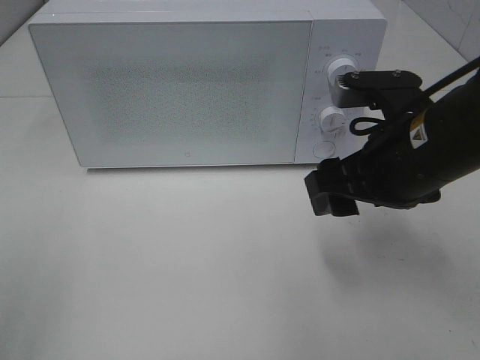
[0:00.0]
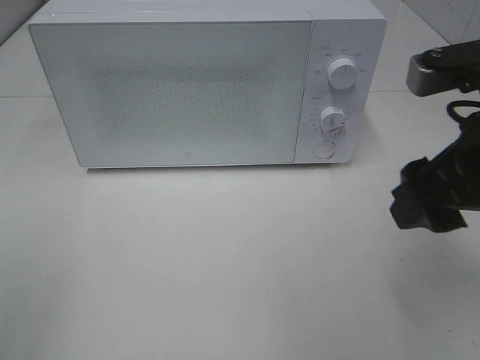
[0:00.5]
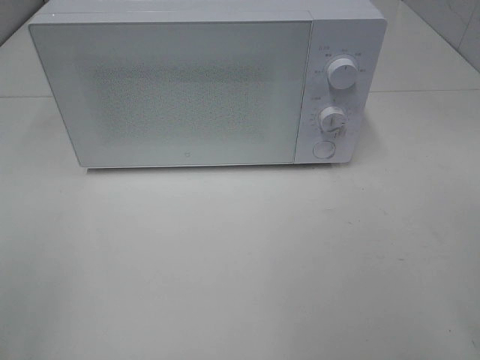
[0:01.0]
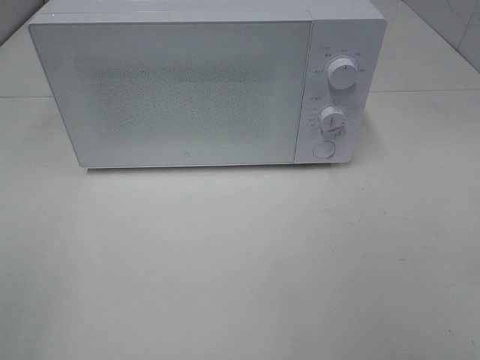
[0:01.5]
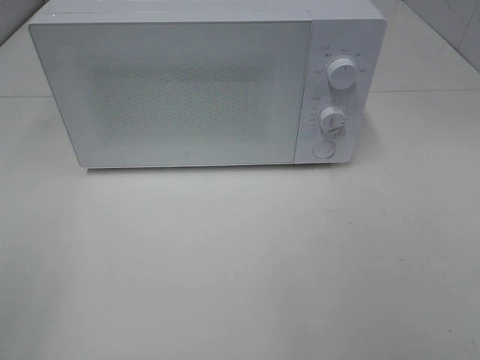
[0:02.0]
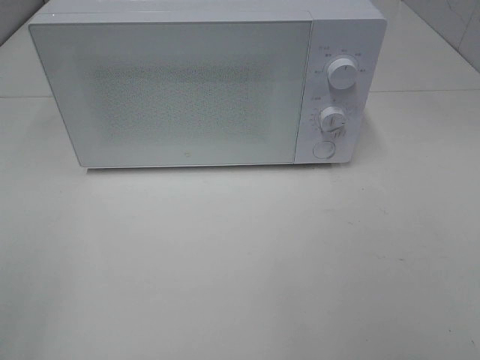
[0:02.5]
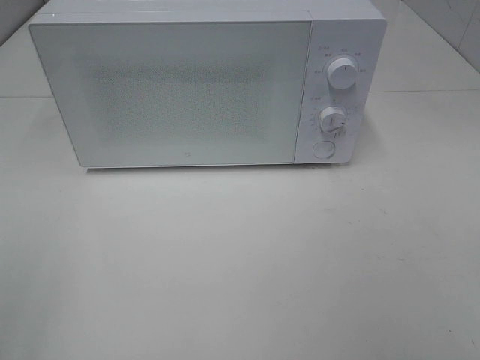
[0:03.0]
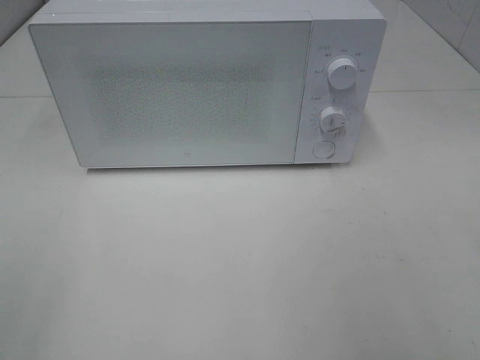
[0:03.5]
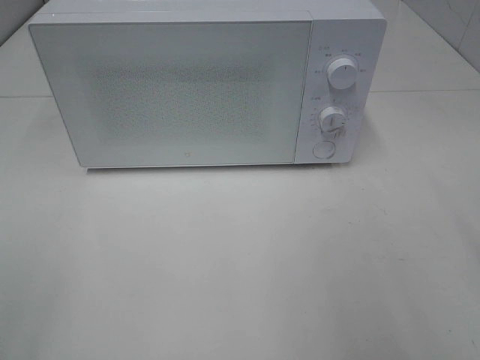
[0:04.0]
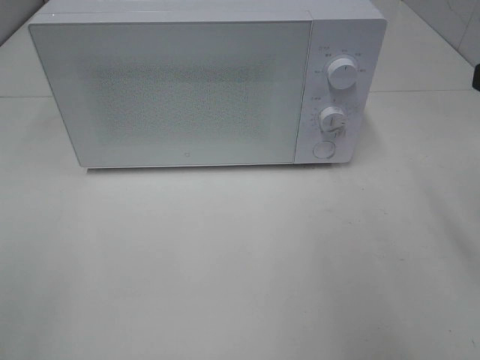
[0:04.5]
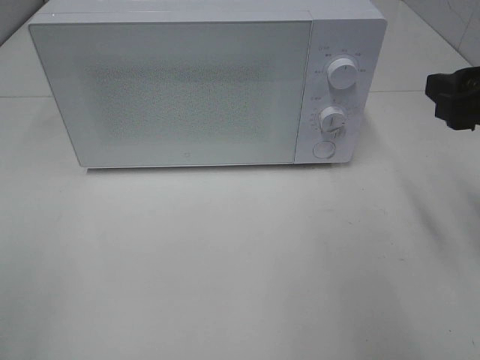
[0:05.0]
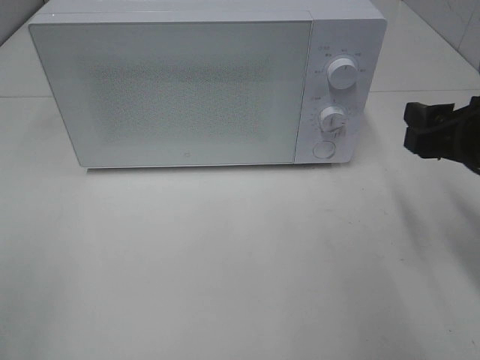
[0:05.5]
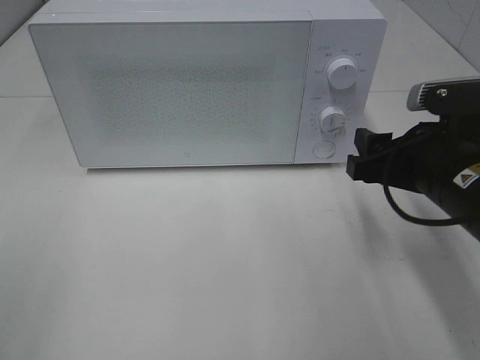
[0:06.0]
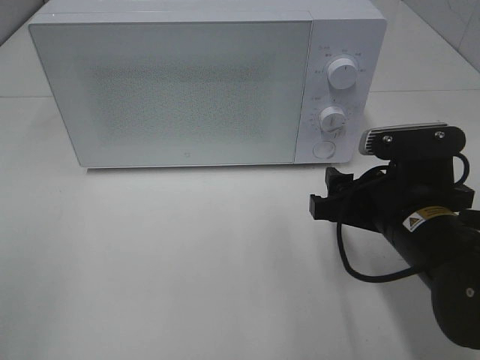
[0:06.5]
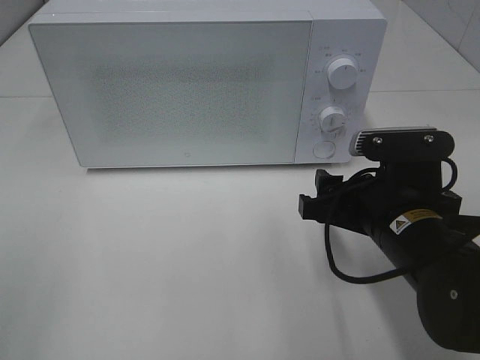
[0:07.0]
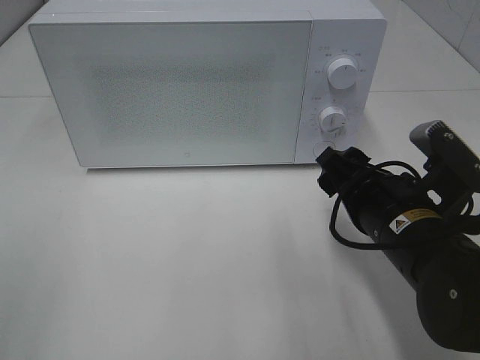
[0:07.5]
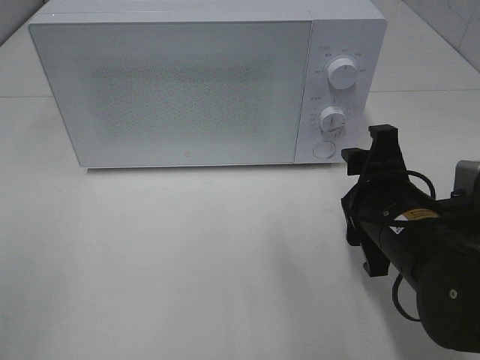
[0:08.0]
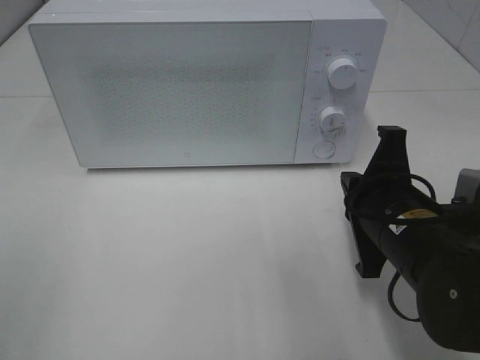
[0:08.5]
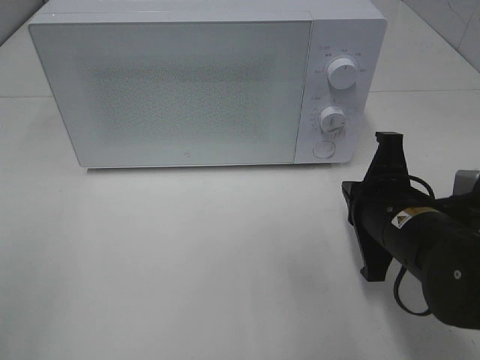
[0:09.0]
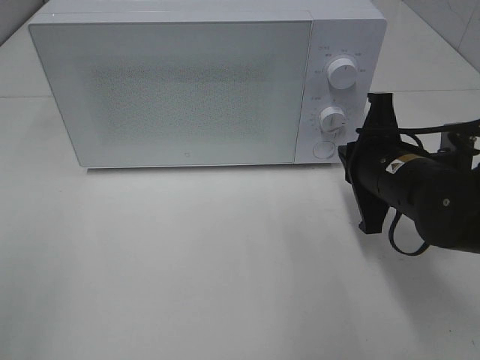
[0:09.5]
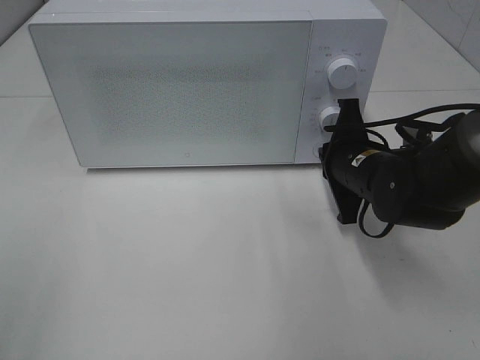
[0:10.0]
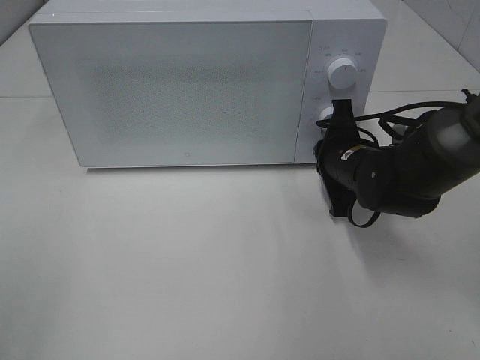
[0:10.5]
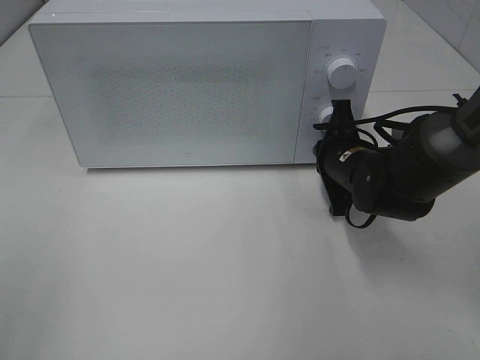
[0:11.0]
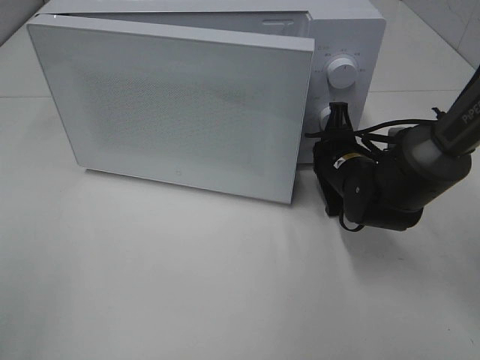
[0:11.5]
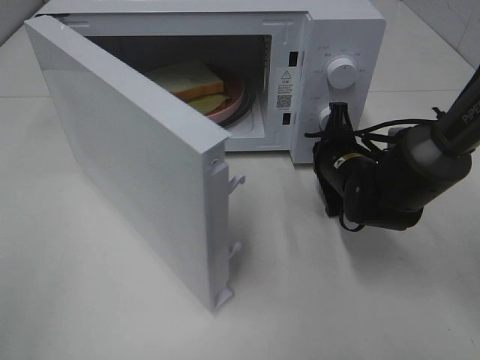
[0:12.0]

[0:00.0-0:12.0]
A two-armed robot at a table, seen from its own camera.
Task of the whole recording: Heat Sandwich.
0:00.0 to 0:02.0: The right gripper moves backward and to the right, roughly 25 cm.
0:04.0 to 0:06.0: The right gripper goes about 20 cm downward, forward and to the left.
0:06.0 to 0:08.0: The right gripper shifts by roughly 5 cm.
0:08.0 to 0:10.0: The right gripper heads forward, covering roughly 10 cm, and closes up.

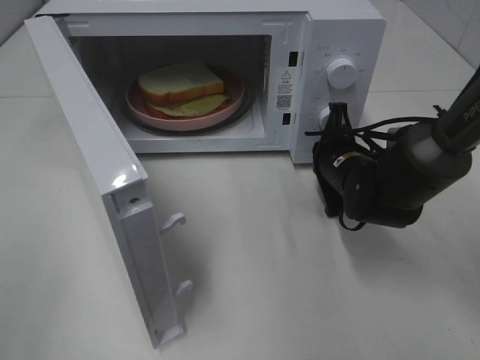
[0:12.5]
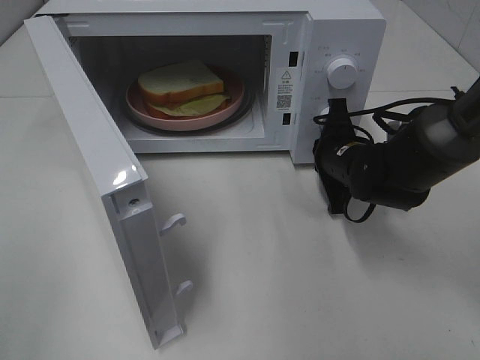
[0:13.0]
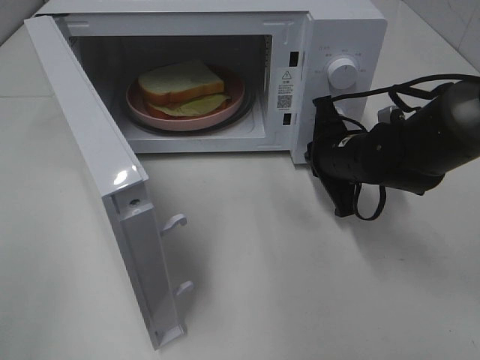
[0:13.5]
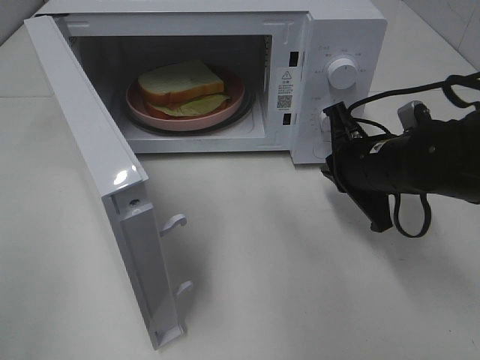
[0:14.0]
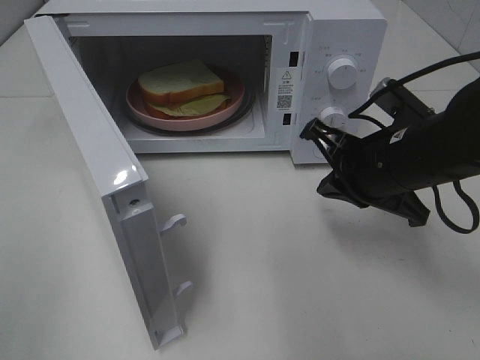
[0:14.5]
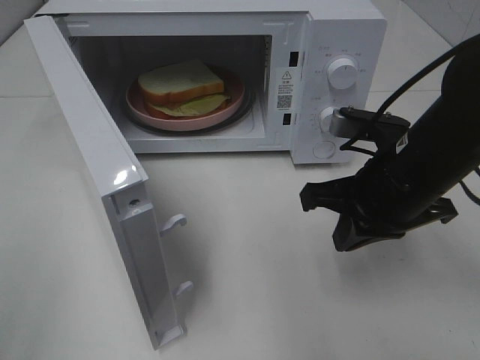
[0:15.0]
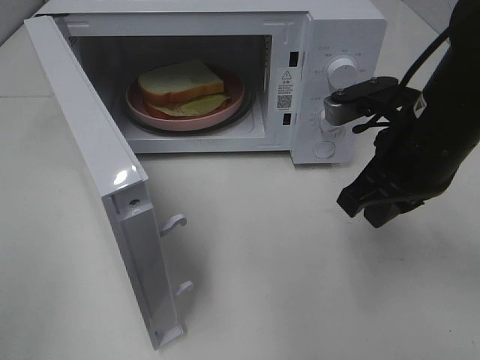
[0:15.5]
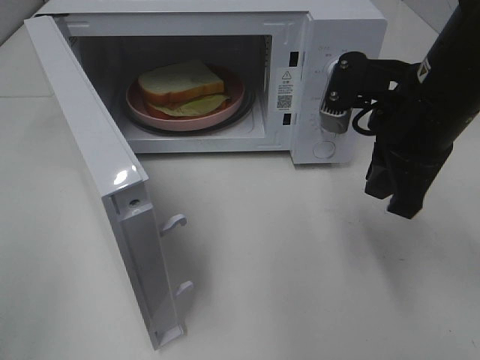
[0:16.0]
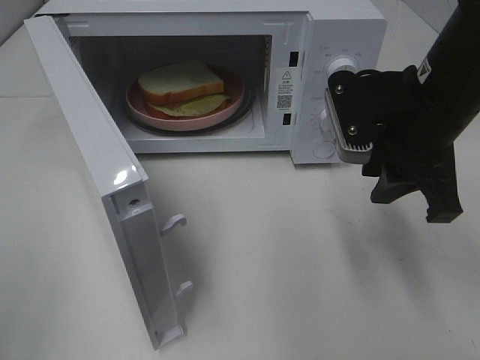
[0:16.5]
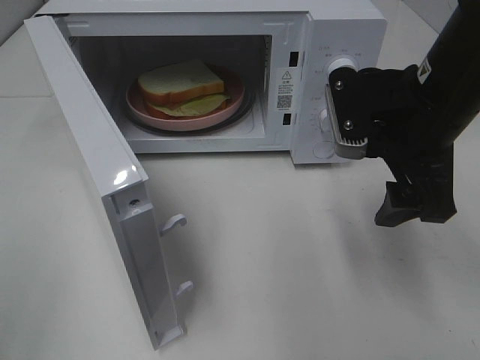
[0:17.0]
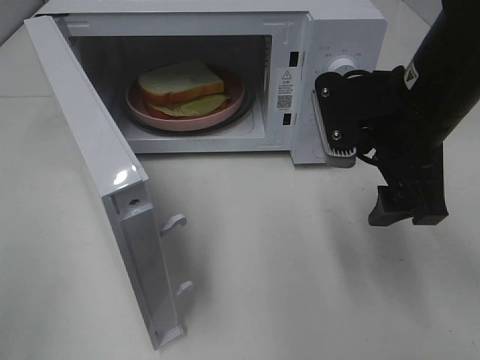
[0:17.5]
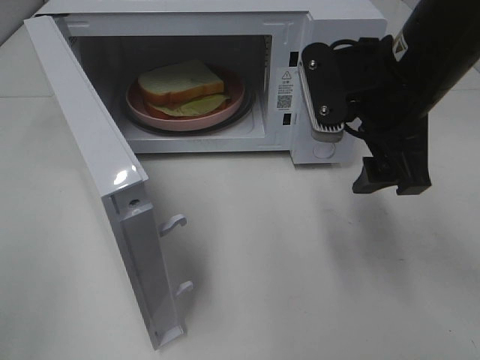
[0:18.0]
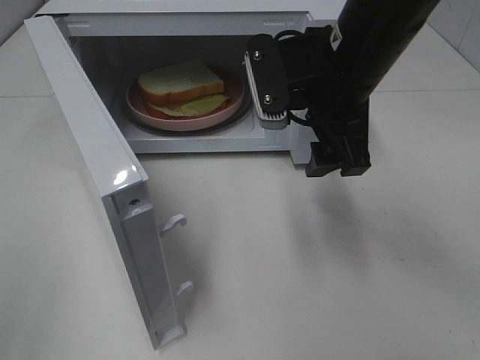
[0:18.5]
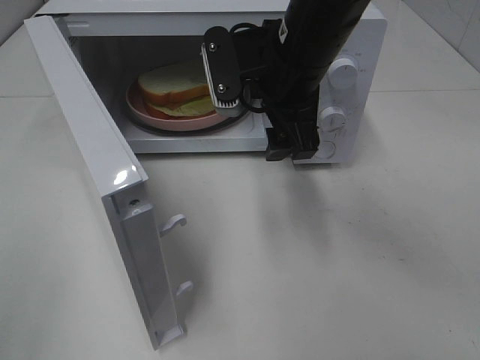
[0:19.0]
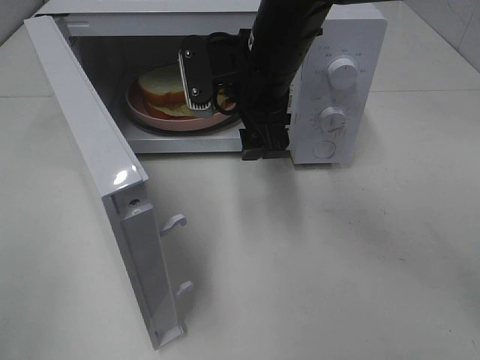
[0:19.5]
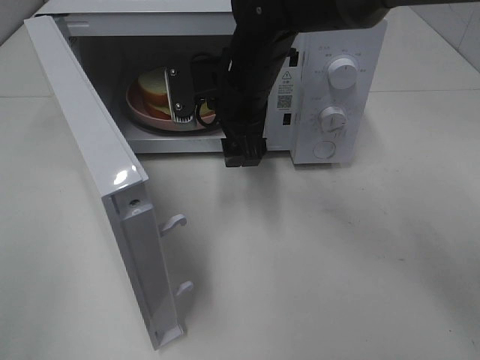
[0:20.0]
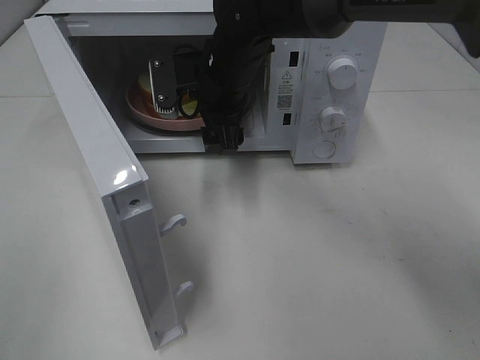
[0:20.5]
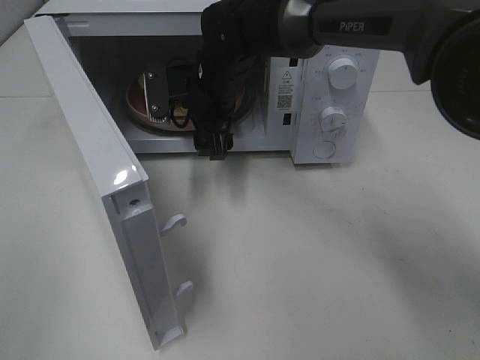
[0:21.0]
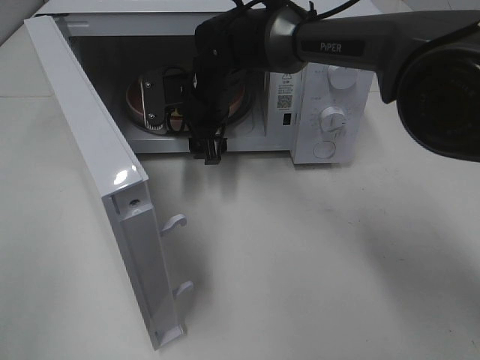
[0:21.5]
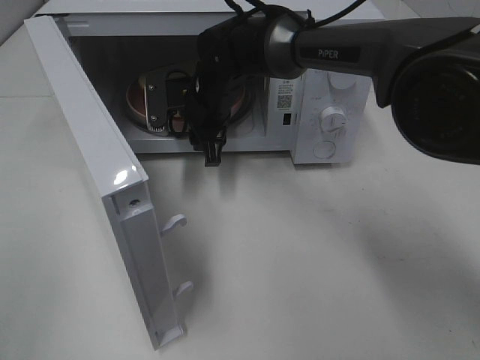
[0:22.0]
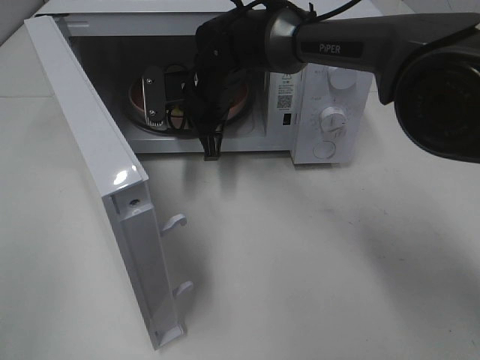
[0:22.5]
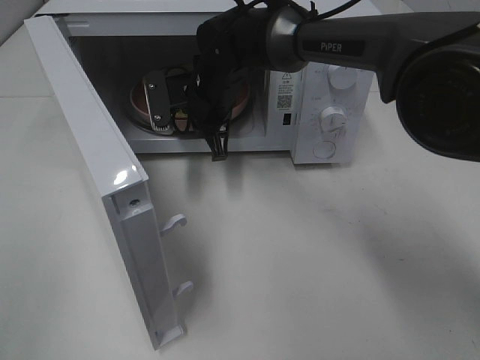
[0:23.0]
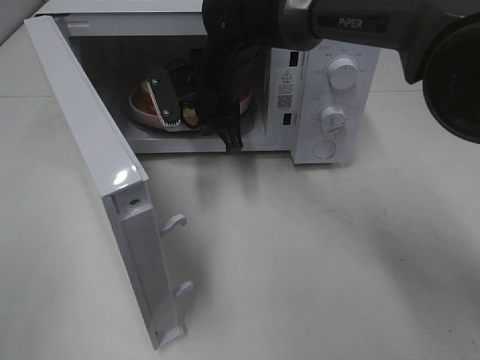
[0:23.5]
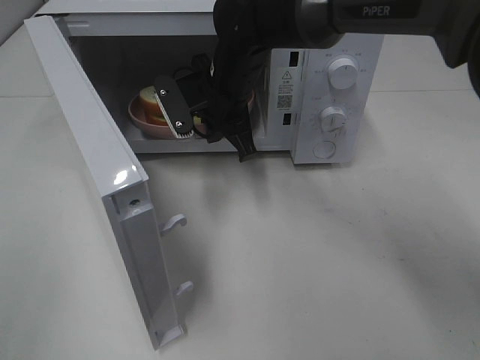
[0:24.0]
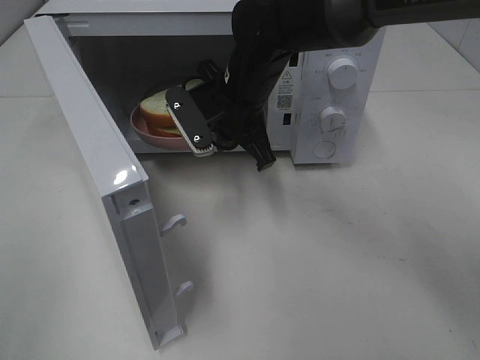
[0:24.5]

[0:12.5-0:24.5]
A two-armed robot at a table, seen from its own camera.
Task of the whole recording: Heat Sandwich.
Step, 0:14.0 to 0:22.0: Right hand: grab the plate with the sandwich.
0:12.5 to 0:14.5: The right gripper travels upward and backward by roughly 15 cm.
0:14.5 to 0:16.5: The right gripper moves upward, approximately 5 cm, and opens.
0:16.5 to 0:18.5: The right gripper travels to the left by about 5 cm, and opens up.
0:18.5 to 0:20.5: The right gripper moves forward, to the left and downward, about 15 cm.
0:20.5 to 0:22.5: The right gripper shifts by roughly 5 cm, and closes up.
0:22.5 to 0:24.5: The right gripper travels backward by approximately 5 cm.

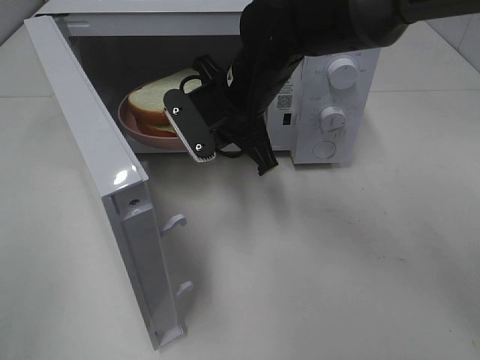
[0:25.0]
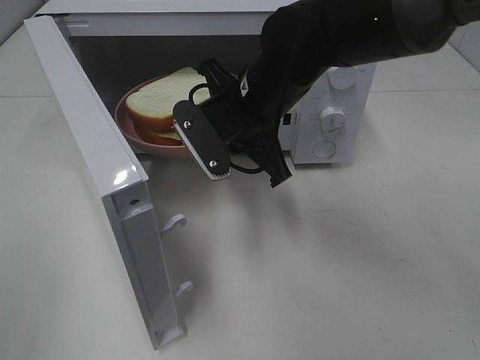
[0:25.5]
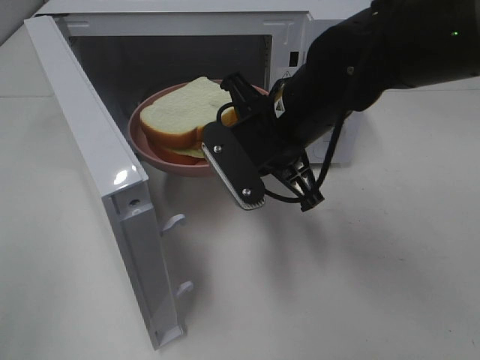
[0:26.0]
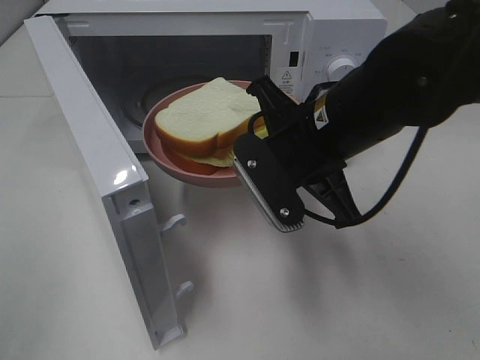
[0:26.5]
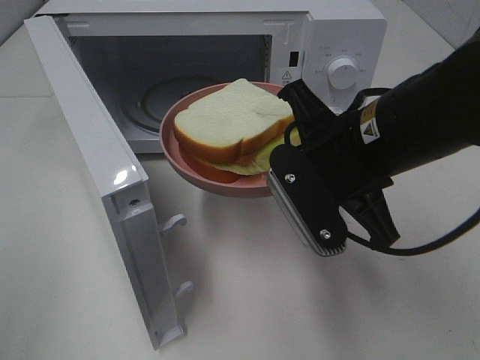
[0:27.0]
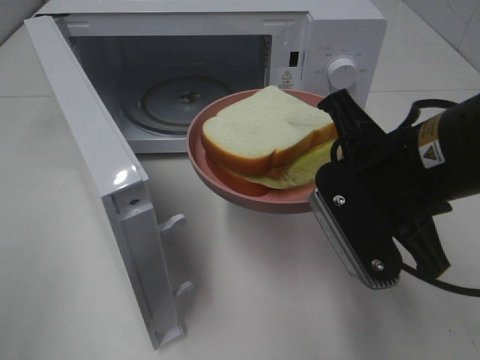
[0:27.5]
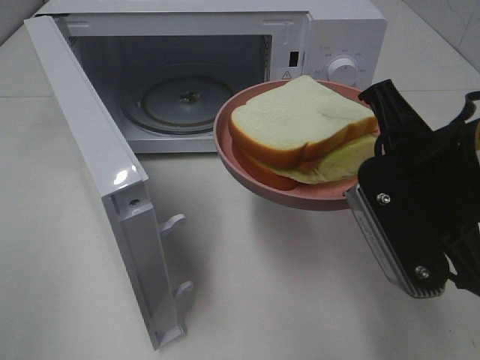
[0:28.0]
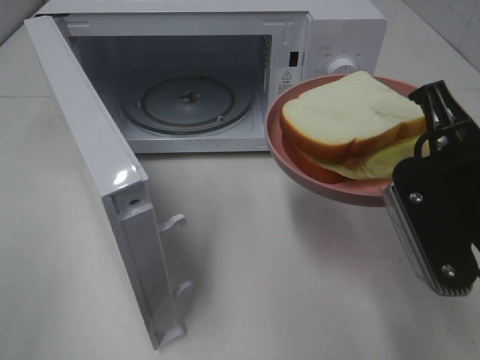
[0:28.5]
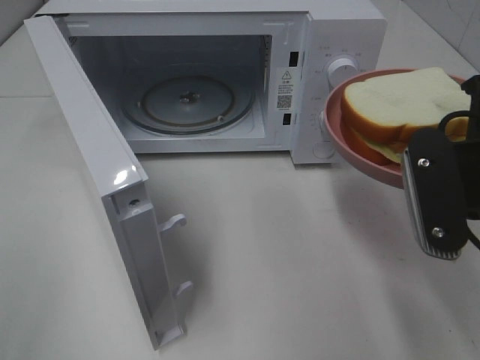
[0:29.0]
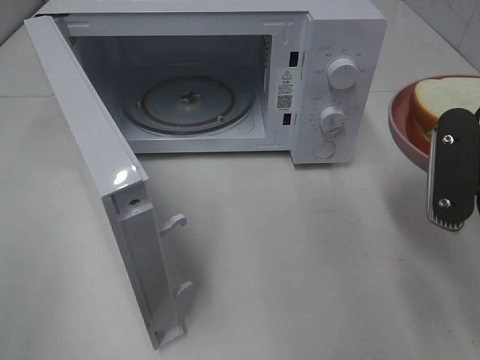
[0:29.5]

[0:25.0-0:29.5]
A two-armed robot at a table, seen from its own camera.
Task of the whole recording: Heat Sandwich.
0:25.0 to 0:27.0: The right gripper is displaced backward and to the right by roughly 15 cm.
0:27.0 to 0:29.5: The right gripper goes approximately 10 cm to the right and backward.
